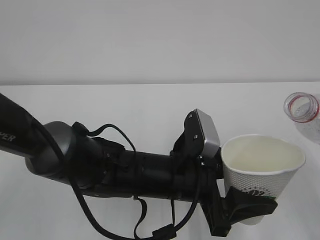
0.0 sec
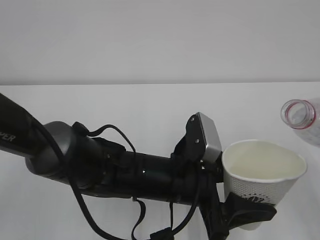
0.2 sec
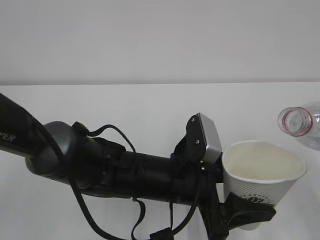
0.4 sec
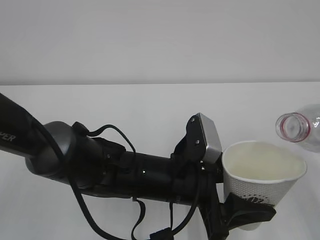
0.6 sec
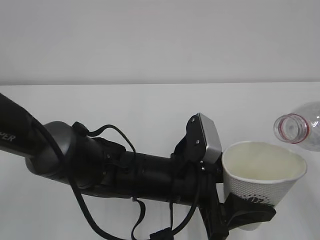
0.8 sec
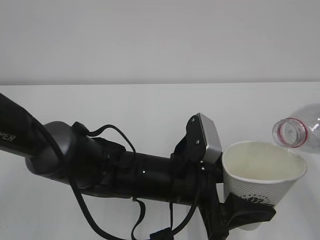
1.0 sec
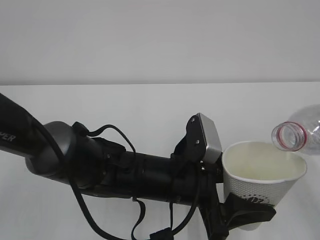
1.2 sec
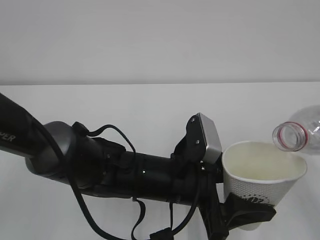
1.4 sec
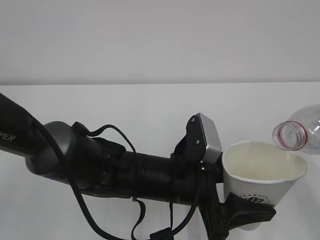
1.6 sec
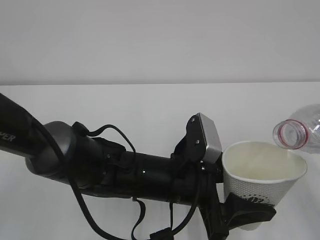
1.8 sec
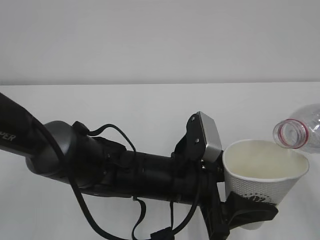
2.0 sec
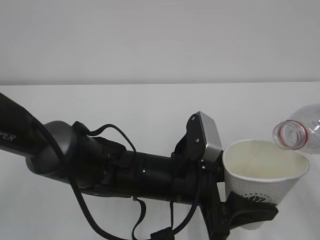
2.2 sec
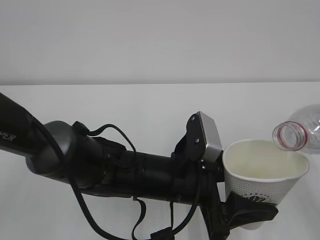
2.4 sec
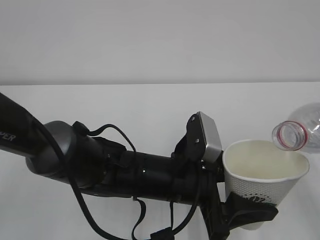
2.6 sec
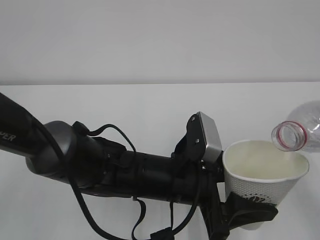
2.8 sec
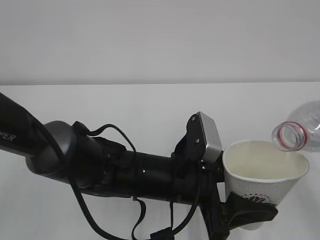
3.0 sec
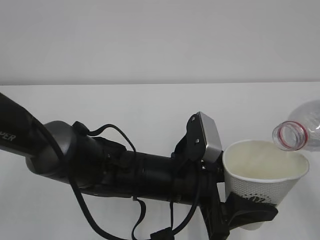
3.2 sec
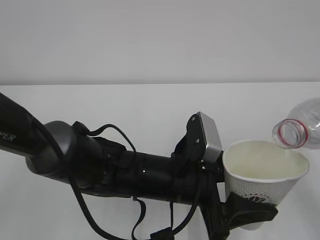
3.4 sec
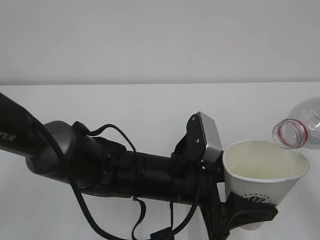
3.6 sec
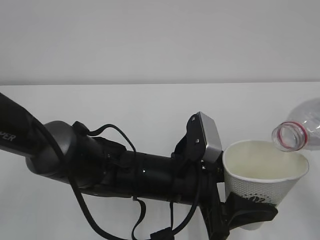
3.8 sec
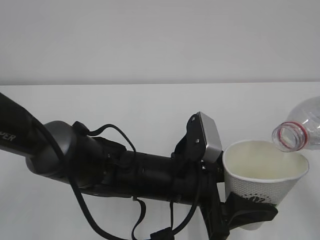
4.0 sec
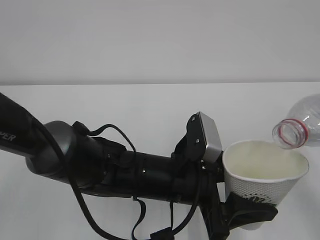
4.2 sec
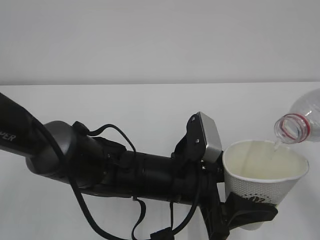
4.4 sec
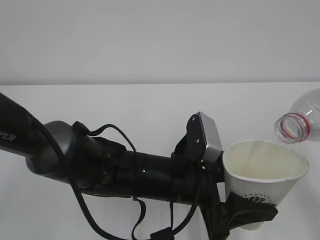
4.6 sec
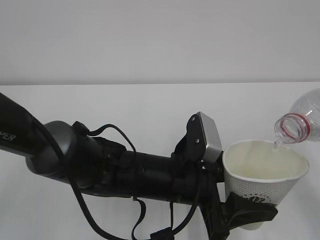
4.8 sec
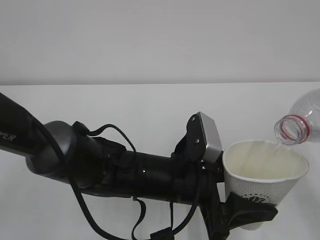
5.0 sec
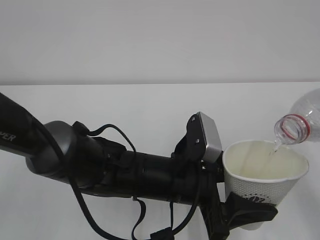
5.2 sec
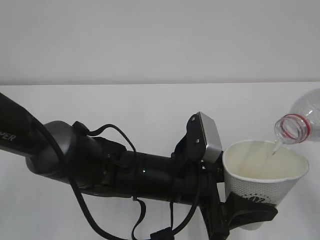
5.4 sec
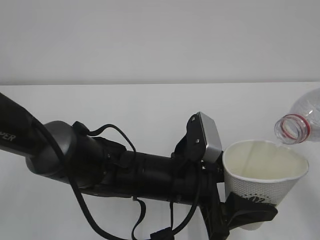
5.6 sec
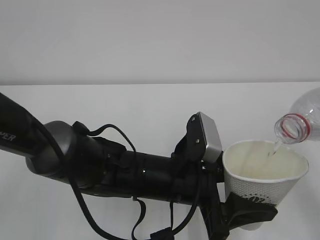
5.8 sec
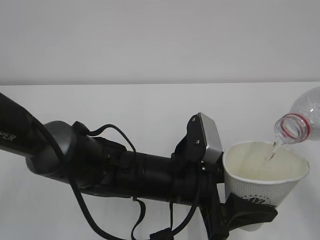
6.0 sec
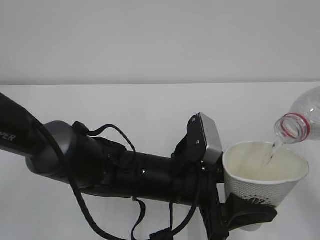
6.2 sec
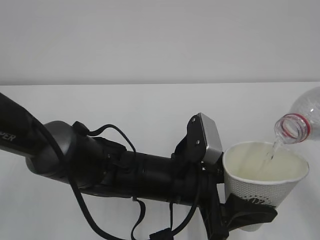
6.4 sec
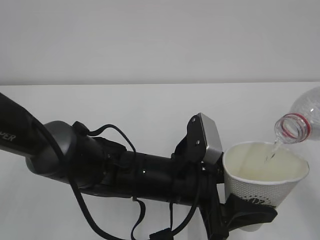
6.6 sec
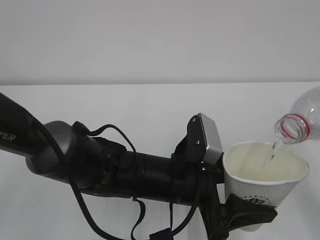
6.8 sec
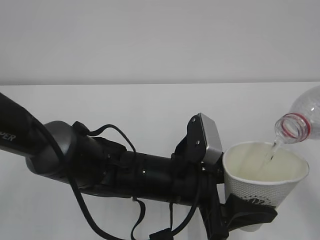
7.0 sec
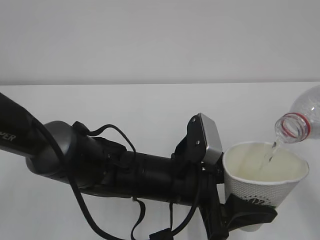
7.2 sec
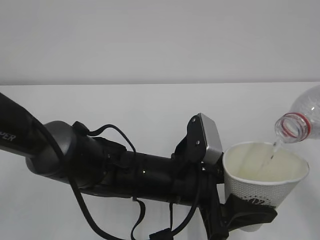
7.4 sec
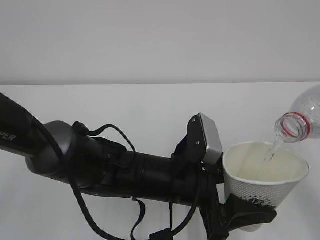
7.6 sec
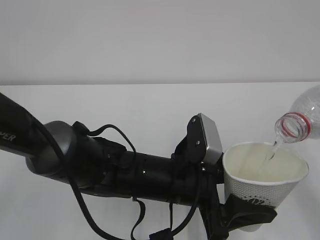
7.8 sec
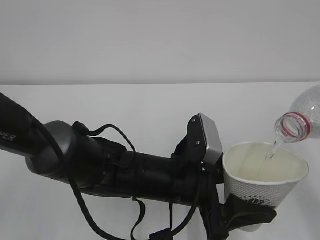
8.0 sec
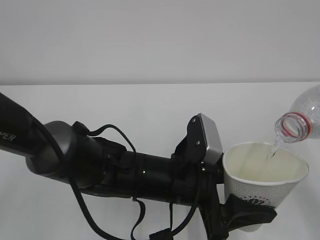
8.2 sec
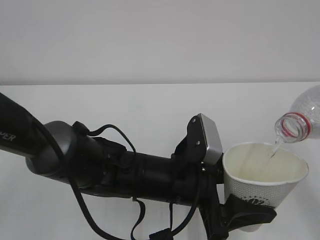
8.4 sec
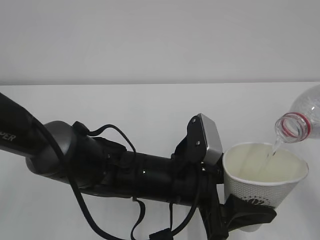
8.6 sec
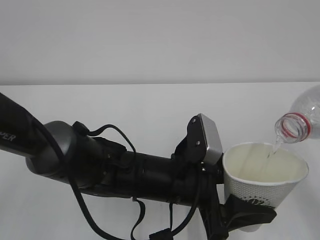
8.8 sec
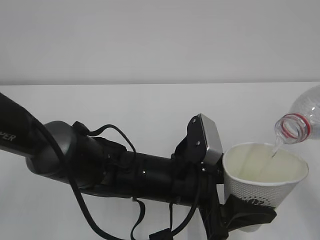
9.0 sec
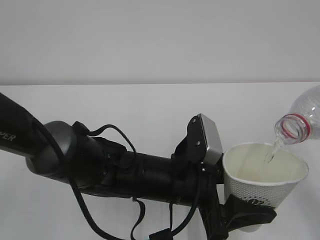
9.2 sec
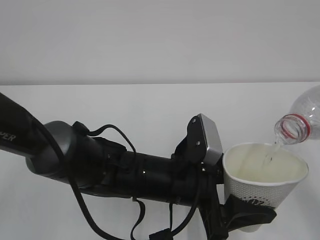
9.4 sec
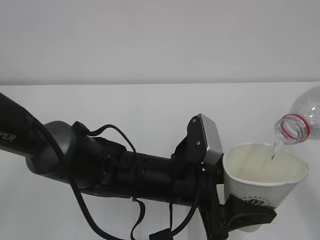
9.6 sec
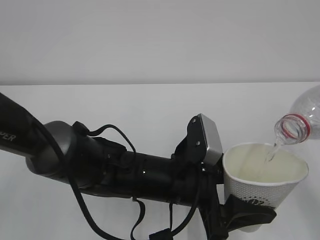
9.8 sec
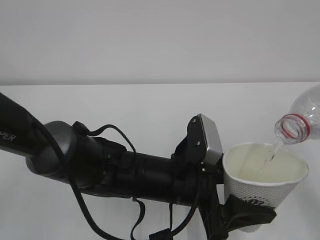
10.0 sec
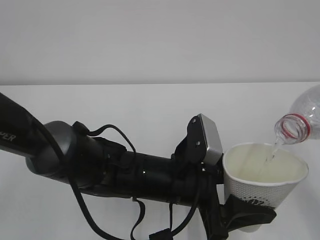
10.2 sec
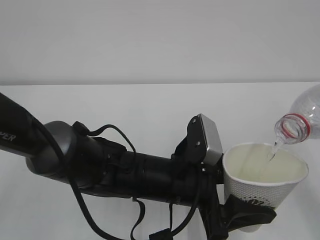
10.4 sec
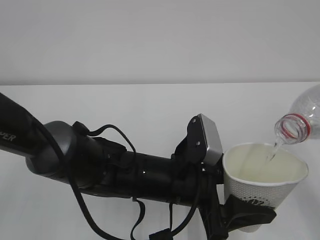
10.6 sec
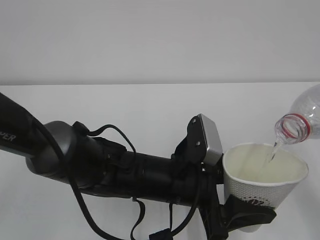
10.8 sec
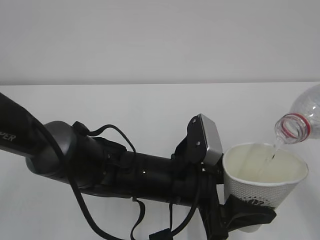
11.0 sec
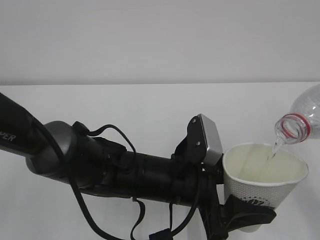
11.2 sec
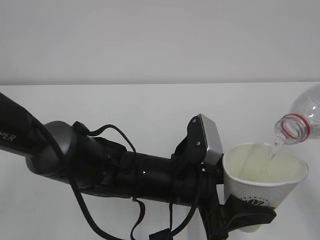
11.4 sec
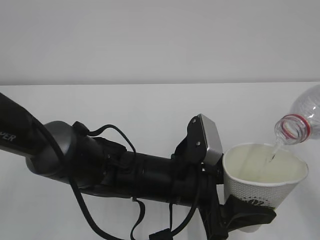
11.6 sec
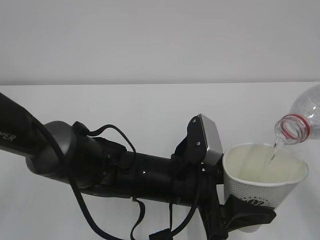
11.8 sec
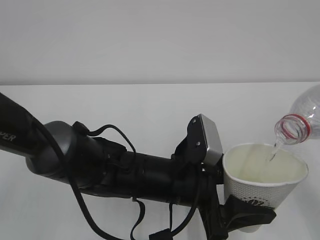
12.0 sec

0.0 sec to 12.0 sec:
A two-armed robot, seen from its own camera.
0.0 sec to 1.6 sec: The grippers stay close to where they were, moving slightly.
1.6 sec to 3.0 sec: Both grippers stay put.
3.0 sec to 4.4 sec: The grippers move only a little.
4.4 sec to 10.4 sec: Neither gripper changes place.
10.4 sec to 12.0 sec: Both grippers stay about where they are.

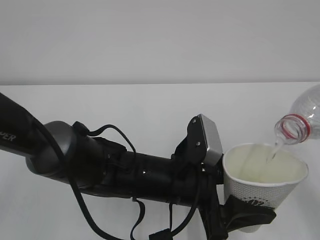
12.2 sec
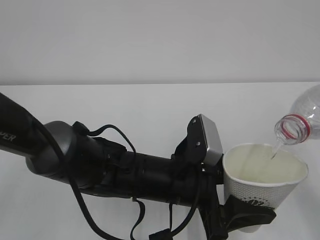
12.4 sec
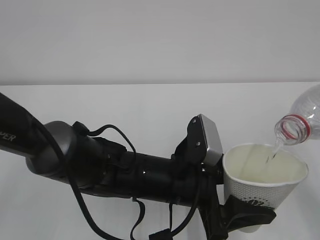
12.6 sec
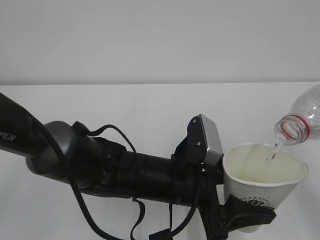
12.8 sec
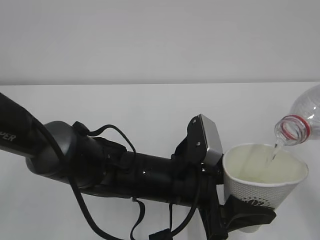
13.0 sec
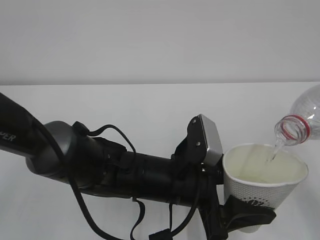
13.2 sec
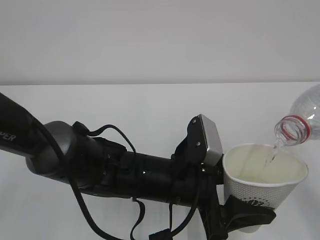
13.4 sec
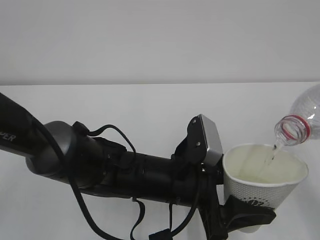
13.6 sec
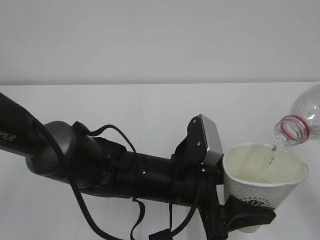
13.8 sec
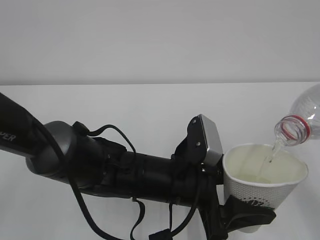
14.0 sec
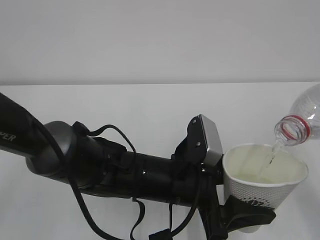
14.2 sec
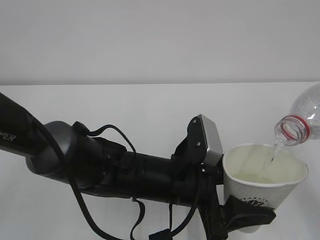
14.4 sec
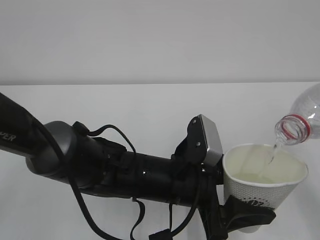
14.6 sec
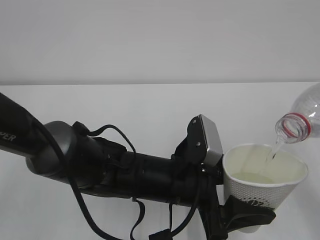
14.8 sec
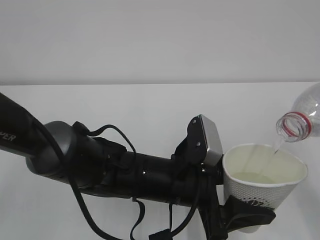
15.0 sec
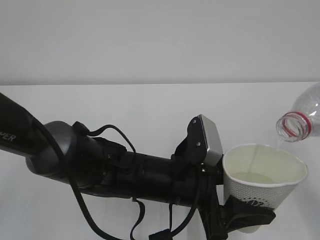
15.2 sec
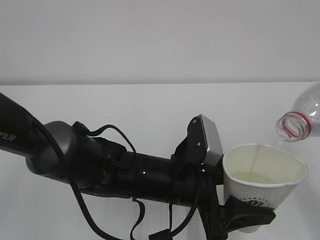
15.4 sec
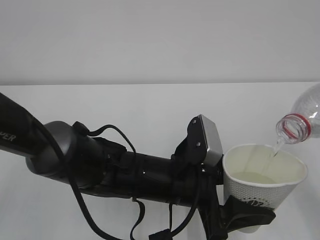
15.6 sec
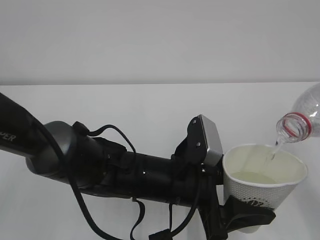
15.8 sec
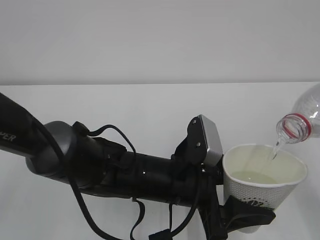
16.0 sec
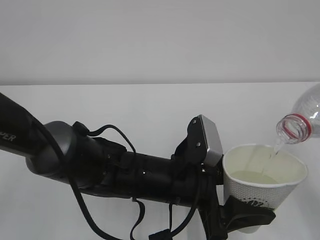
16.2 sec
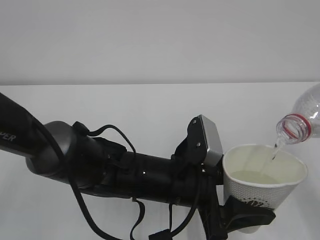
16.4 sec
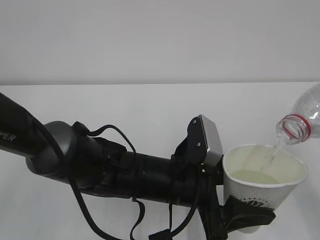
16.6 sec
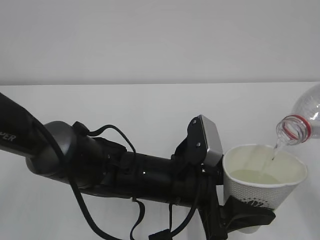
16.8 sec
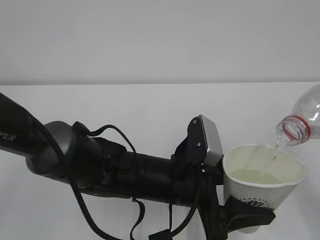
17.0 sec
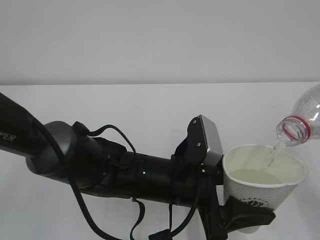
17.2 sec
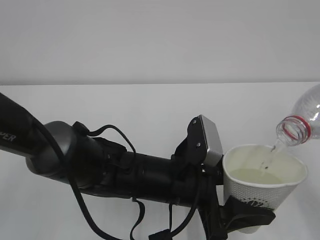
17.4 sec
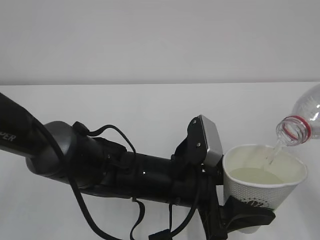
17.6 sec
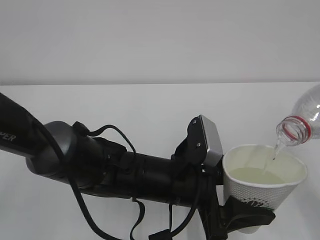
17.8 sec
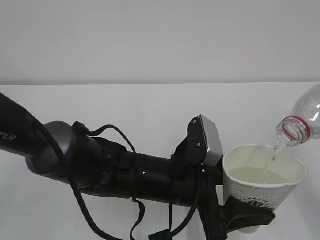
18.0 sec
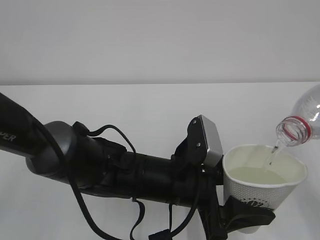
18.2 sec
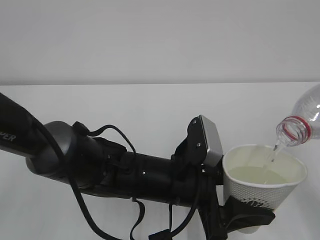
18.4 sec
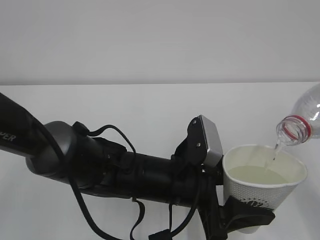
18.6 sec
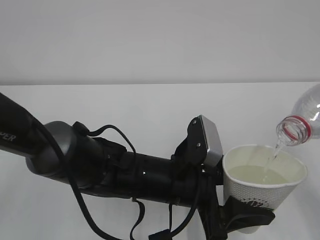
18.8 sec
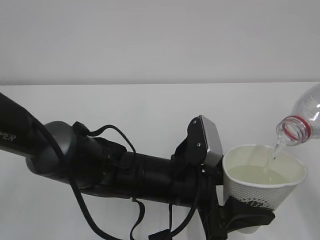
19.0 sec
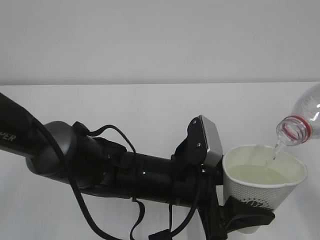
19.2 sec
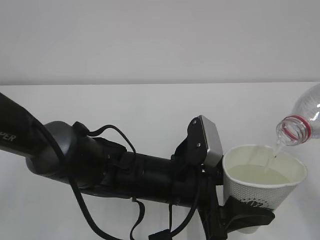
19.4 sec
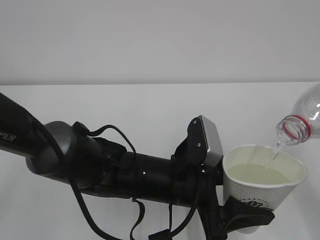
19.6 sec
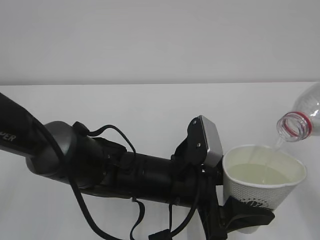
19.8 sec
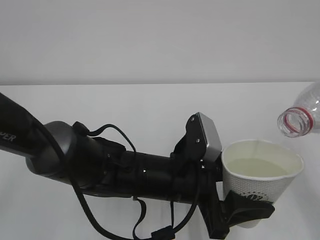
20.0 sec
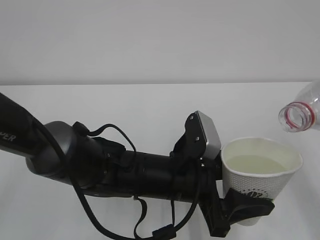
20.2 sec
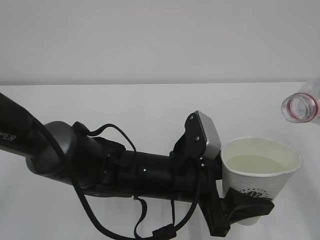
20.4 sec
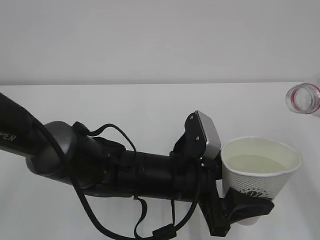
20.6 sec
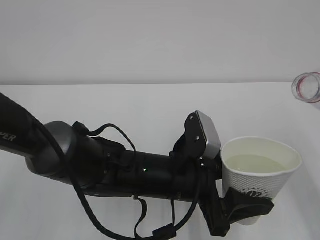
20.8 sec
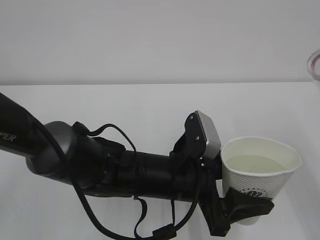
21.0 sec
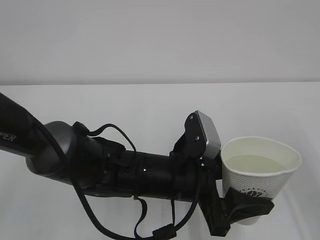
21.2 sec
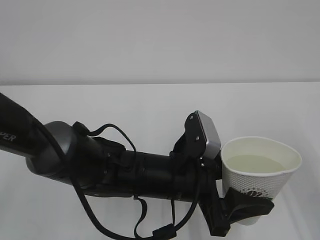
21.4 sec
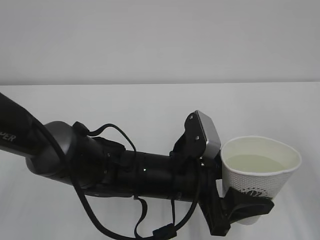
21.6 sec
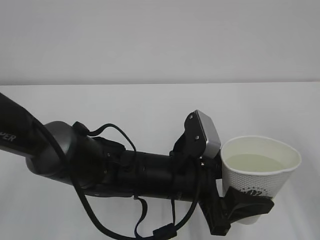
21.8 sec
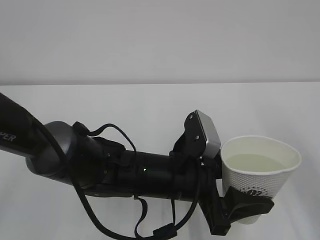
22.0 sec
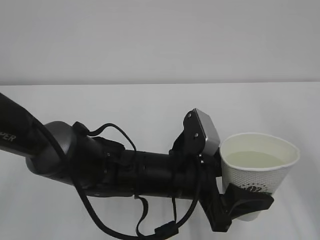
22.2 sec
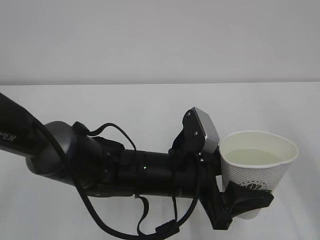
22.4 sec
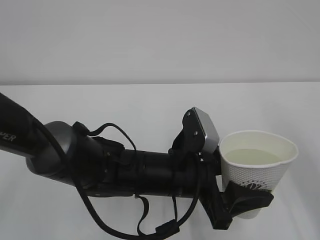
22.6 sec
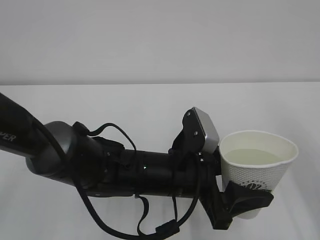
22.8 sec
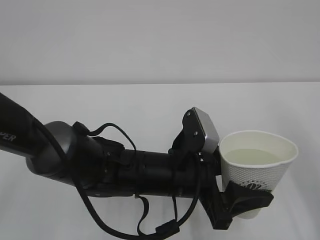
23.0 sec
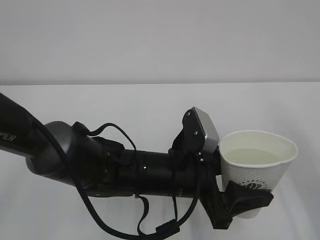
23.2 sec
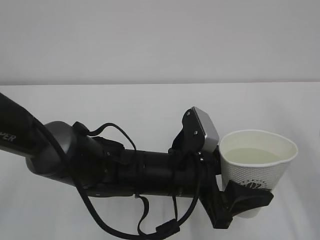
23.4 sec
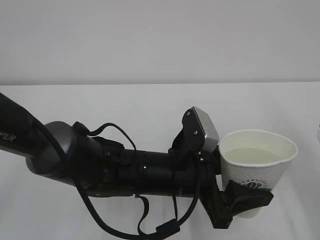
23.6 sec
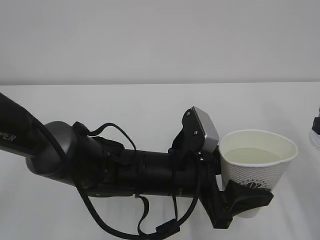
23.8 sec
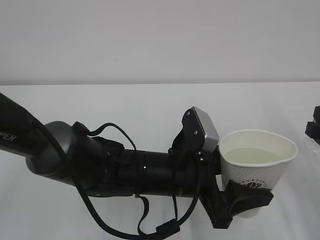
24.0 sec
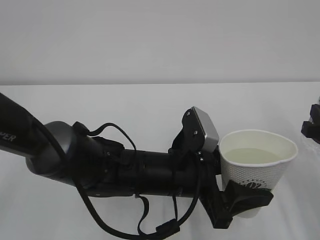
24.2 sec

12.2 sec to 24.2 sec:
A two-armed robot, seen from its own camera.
12.2 sec to 19.8 sec: Neither gripper changes place.
22.6 sec to 24.2 sec: The right gripper is displaced downward and forward by some 10 cm.
